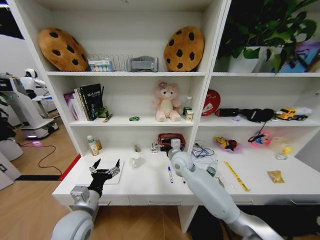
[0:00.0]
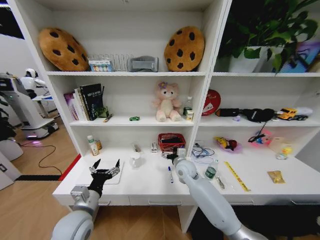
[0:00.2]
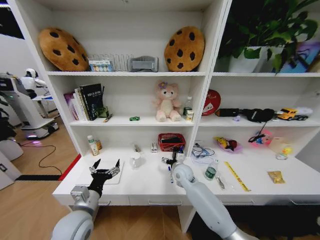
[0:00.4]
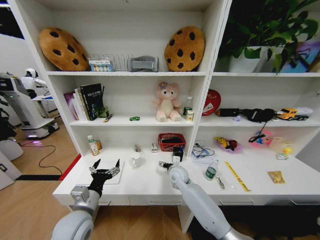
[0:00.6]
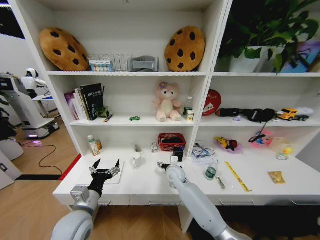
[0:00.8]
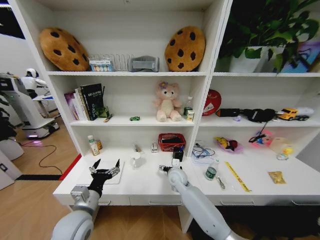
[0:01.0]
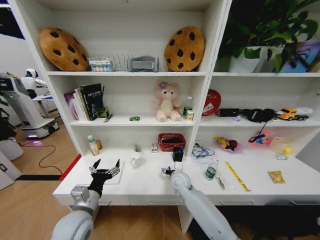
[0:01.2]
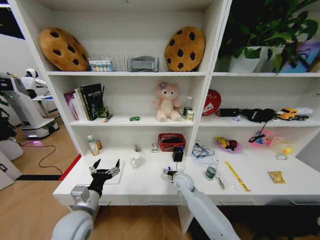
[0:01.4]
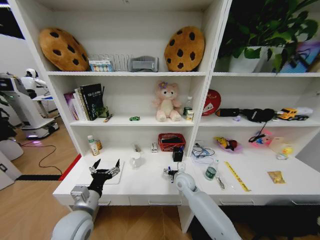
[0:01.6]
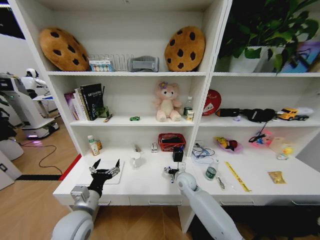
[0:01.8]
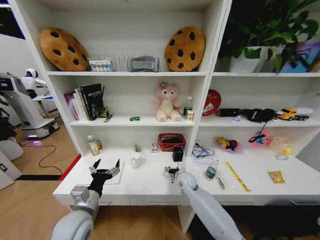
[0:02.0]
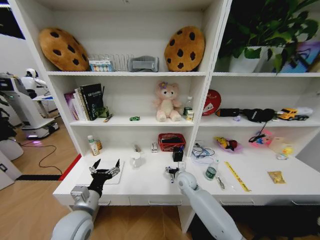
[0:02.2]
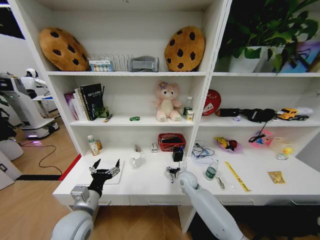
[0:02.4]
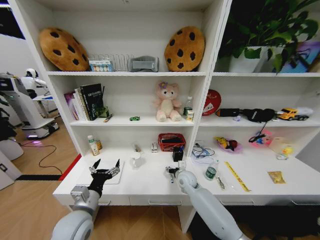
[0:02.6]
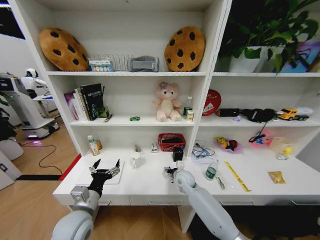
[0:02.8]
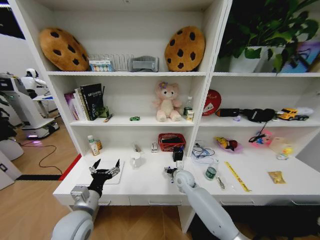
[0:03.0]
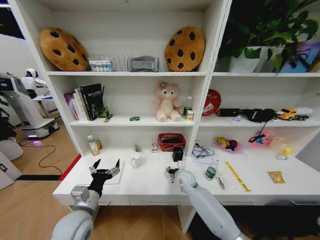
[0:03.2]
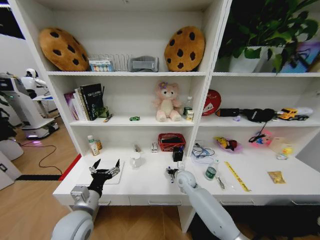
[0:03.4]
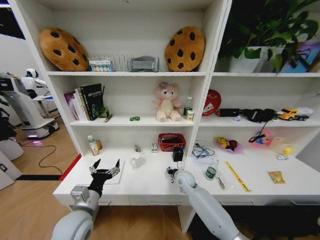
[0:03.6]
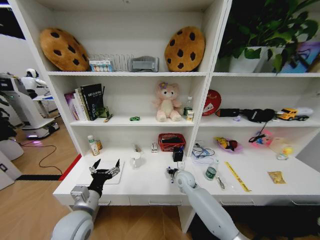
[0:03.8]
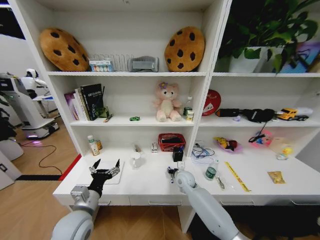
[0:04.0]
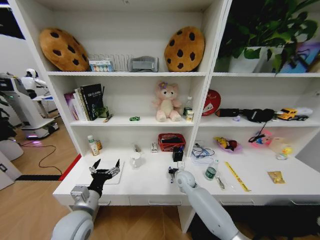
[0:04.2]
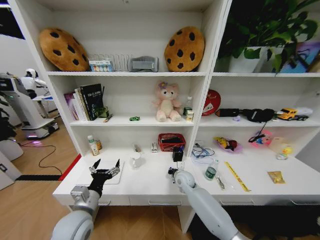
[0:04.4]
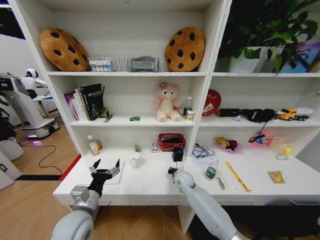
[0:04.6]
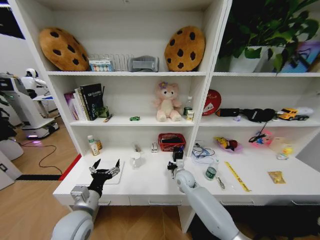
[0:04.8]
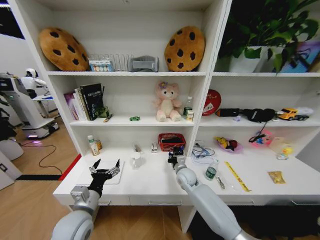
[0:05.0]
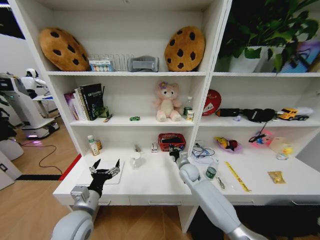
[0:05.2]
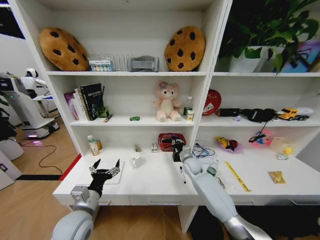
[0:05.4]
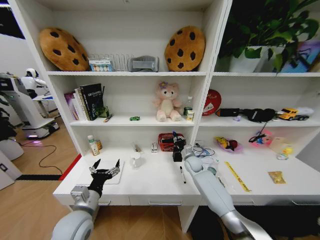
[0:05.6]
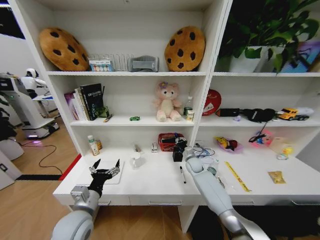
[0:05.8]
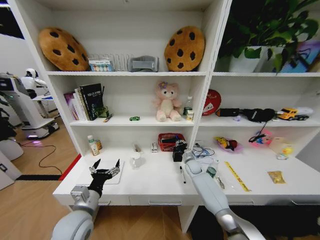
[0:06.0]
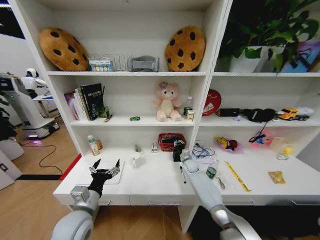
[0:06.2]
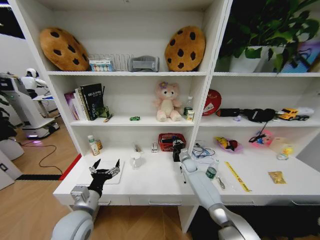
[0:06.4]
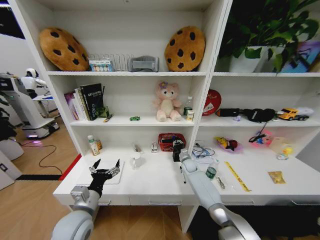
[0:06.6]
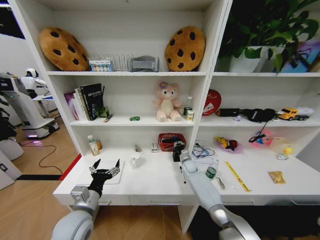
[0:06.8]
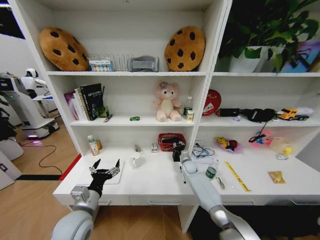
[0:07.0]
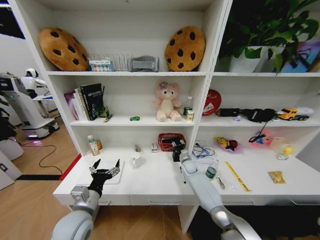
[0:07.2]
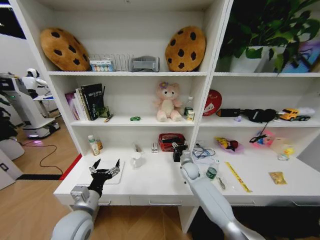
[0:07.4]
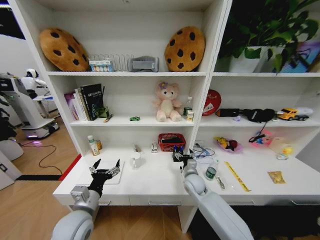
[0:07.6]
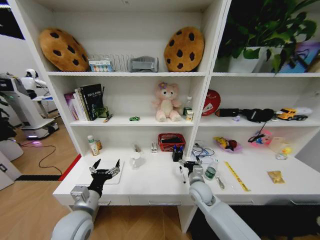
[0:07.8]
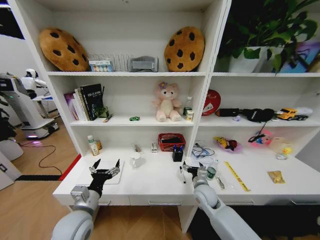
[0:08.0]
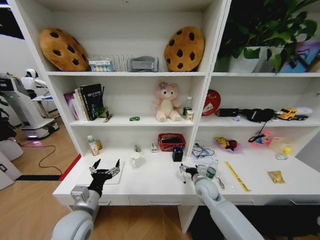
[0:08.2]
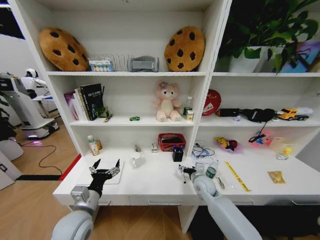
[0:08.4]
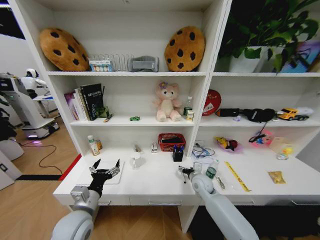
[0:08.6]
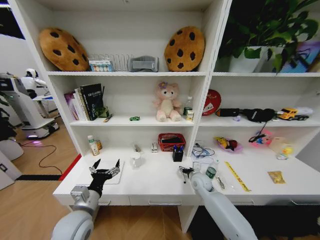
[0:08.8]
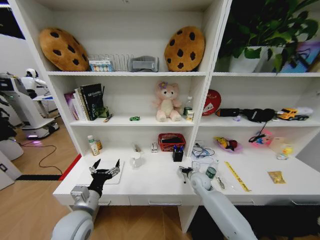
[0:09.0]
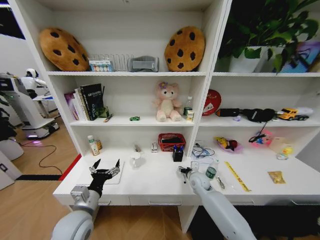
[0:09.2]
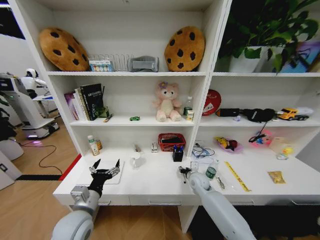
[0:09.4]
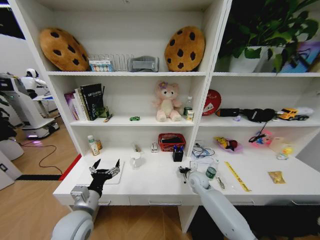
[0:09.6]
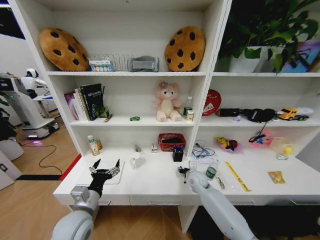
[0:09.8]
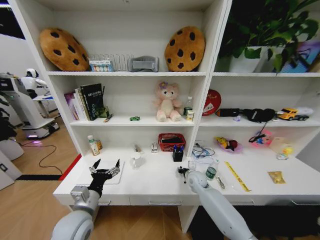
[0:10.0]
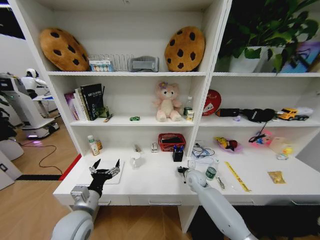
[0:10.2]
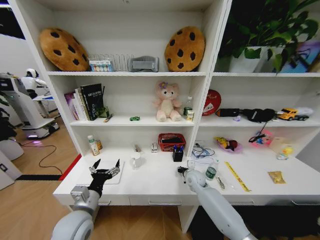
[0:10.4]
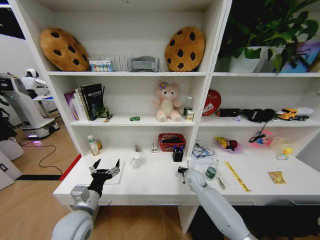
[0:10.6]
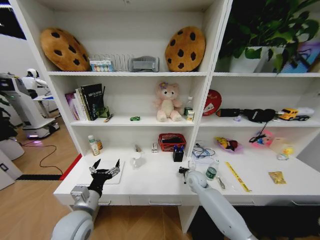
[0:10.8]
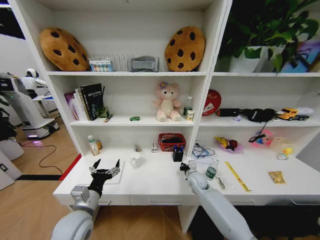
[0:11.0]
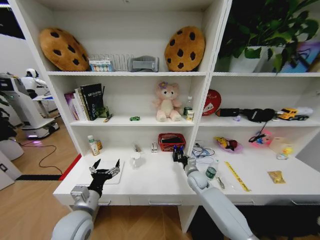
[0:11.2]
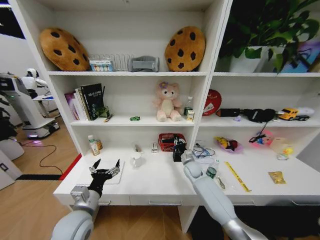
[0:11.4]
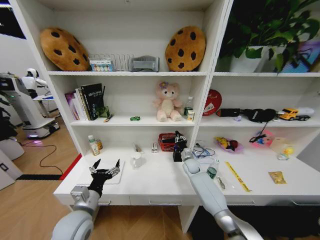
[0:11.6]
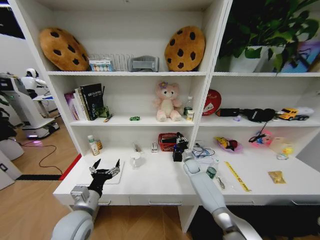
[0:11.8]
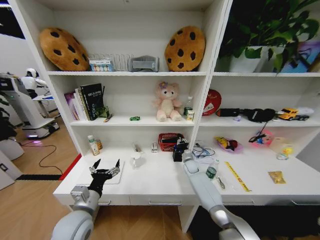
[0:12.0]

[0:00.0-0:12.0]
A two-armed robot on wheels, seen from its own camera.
Task of the whole recording: Organize the objects on the table.
0:00.0 to 0:01.6: The right gripper heads downward, covering approximately 10 cm.
0:01.6 to 0:03.0: The grippers stay close to where they were, moving slightly.
0:04.4 to 0:06.0: The right gripper is displaced forward and to the right by roughly 15 cm.
0:06.0 to 0:07.6: The right gripper shifts approximately 15 cm backward, and opens up.
0:07.6 to 0:09.0: The right gripper moves some 5 cm.
0:09.0 to 0:10.4: The right gripper closes.
0:10.4 to 0:12.0: The right gripper moves forward, approximately 10 cm.

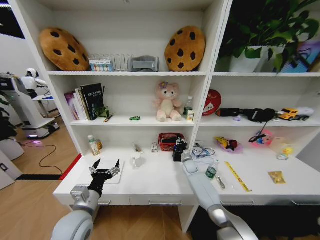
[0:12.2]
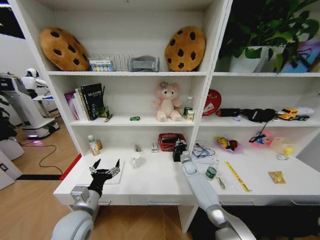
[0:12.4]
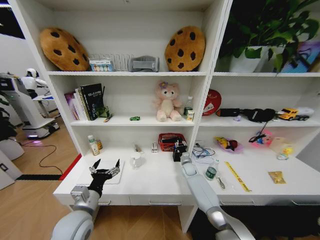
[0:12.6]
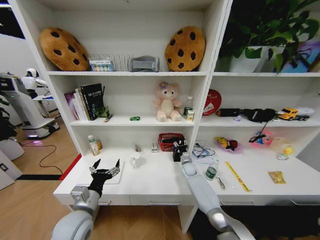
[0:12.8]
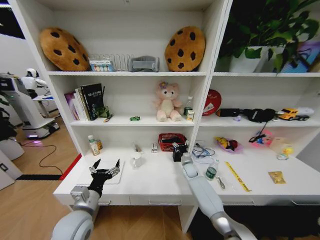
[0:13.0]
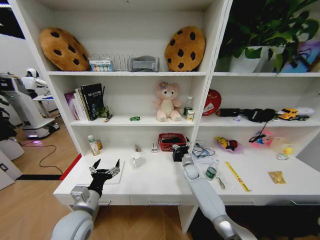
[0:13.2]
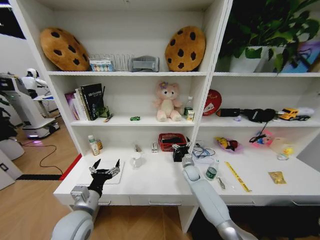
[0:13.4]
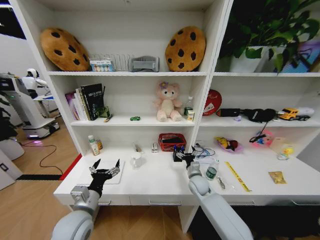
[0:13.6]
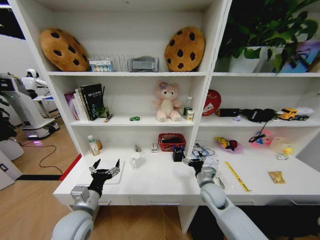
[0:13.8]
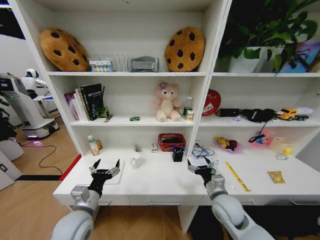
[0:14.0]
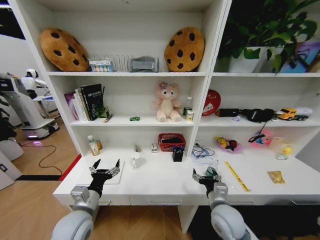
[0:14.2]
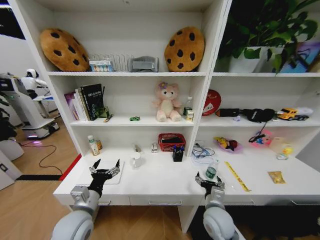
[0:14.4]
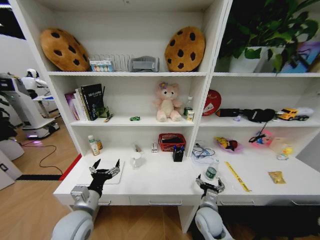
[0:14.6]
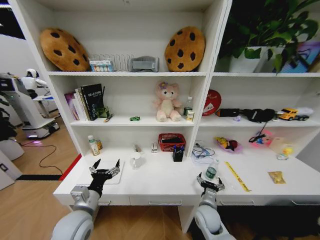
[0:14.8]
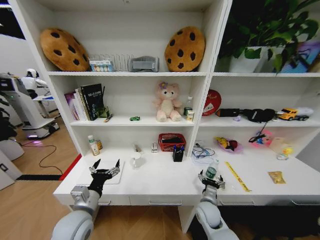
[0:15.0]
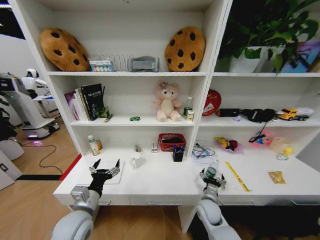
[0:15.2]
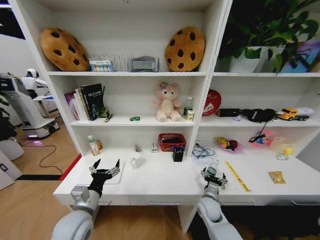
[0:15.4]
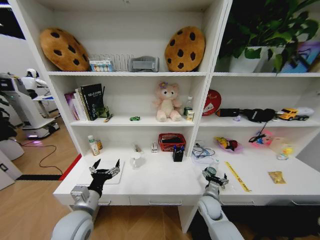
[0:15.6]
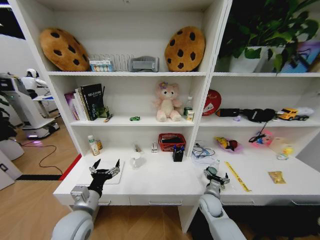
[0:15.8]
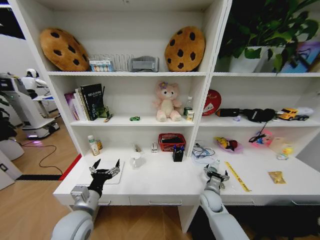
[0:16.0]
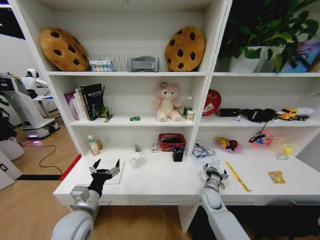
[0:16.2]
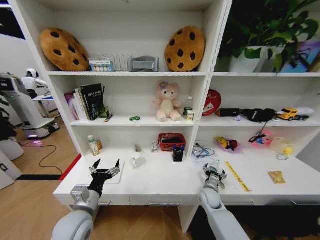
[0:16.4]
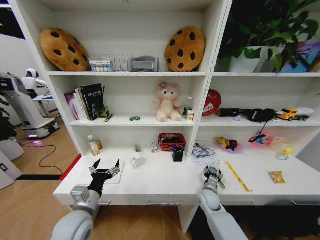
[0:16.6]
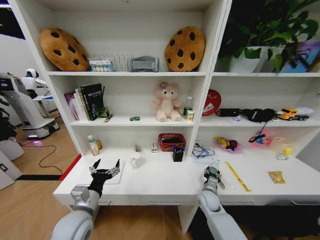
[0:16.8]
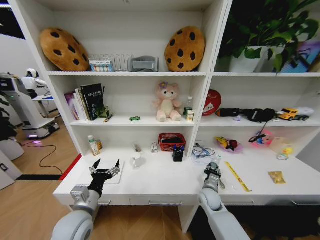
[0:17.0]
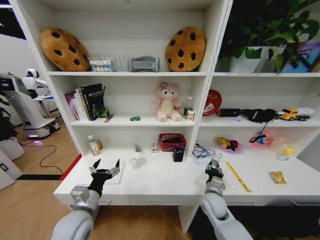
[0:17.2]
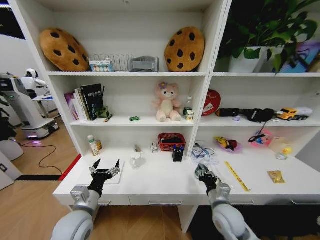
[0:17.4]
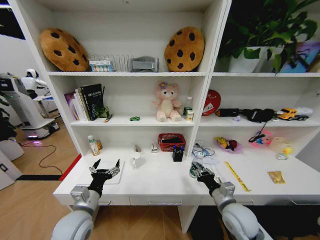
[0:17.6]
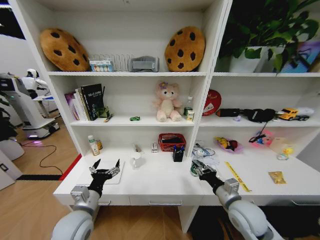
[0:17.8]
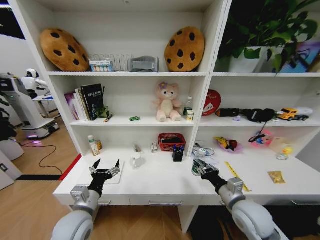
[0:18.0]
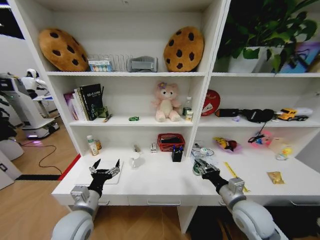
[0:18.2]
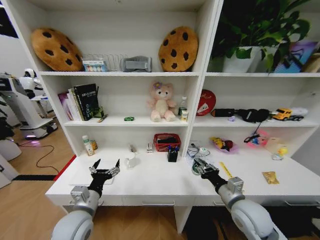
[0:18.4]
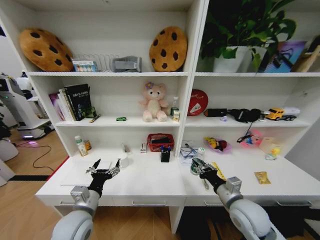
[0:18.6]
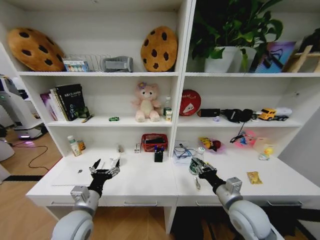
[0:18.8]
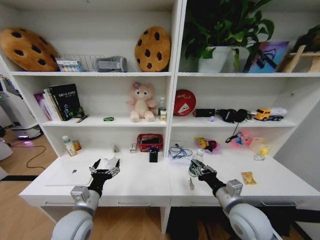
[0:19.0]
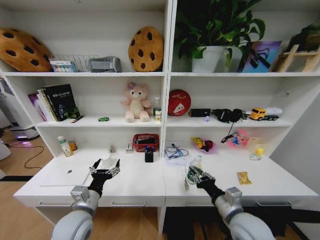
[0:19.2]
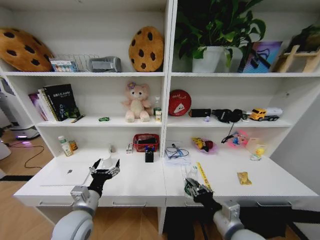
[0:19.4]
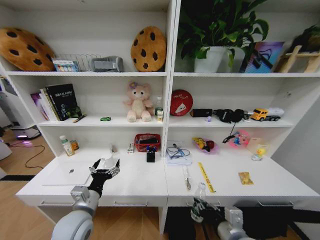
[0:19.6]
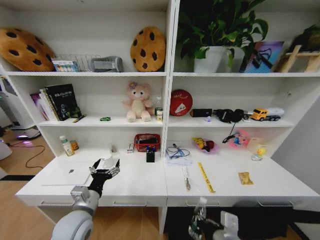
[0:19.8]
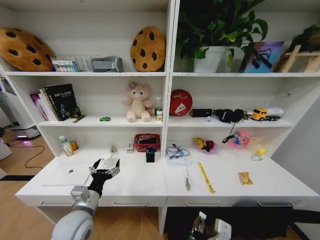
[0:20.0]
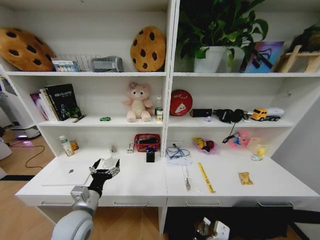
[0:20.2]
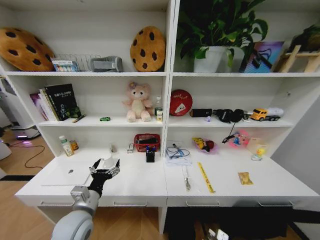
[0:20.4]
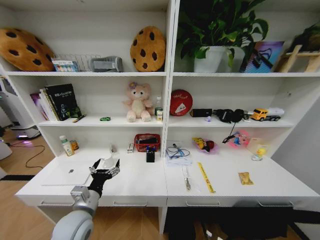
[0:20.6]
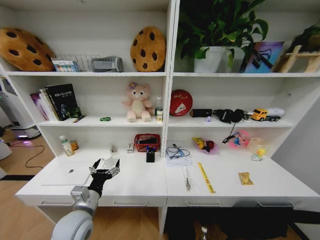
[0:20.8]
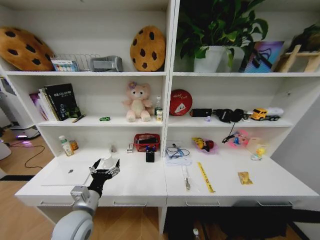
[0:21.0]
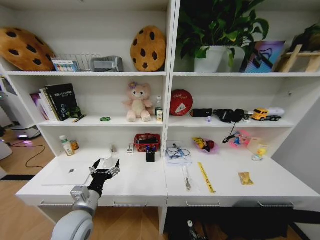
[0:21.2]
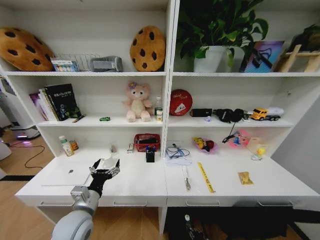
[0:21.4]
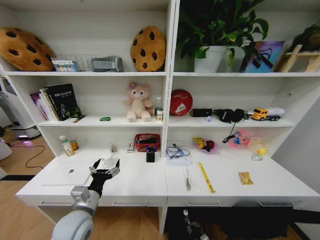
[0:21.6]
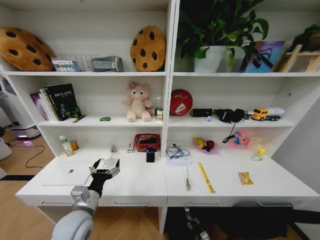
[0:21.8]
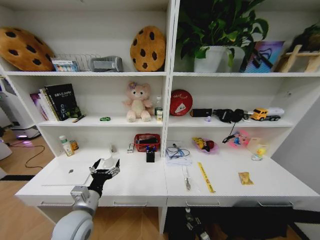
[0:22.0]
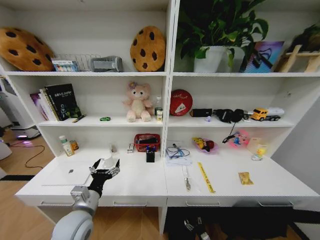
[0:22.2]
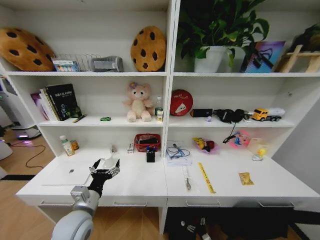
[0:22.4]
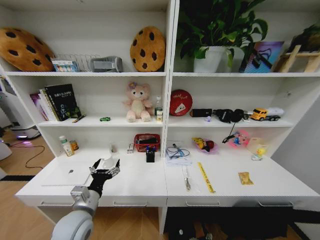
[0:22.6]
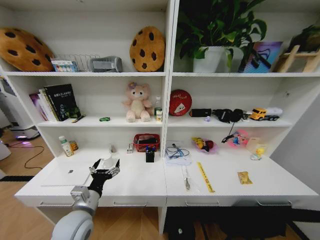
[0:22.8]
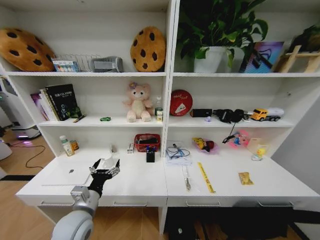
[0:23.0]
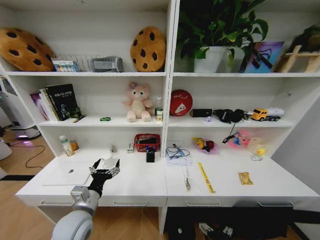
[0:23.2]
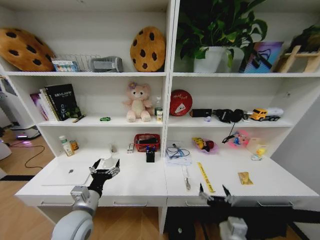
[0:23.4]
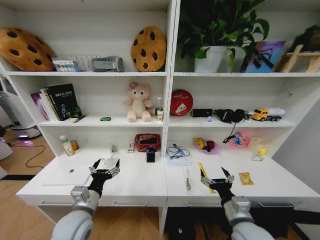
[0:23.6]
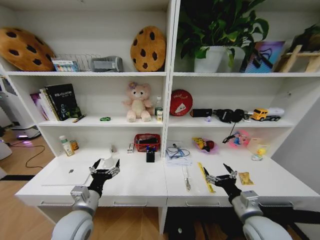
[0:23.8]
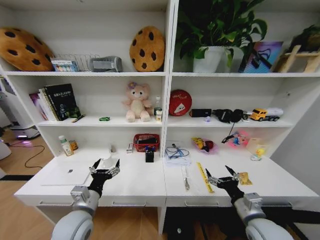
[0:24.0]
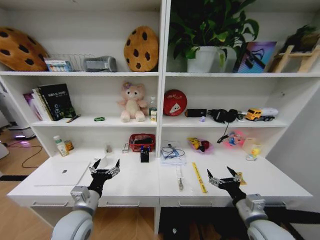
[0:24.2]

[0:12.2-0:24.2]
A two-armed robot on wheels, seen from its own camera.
Task of the whole recording: Organize the objects on the table.
0:12.2 to 0:13.8: The right gripper shifts some 20 cm backward and upward, and opens its fingers.
0:13.8 to 0:15.2: The right gripper shifts about 10 cm downward.
0:15.2 to 0:16.6: The right gripper goes about 5 cm forward.
0:16.6 to 0:18.2: The right gripper heads upward and backward, covering about 20 cm, and closes.
0:18.2 to 0:19.8: The right gripper is displaced backward and to the left by roughly 15 cm.
0:19.8 to 0:21.2: The right gripper goes roughly 50 cm downward.
0:21.2 to 0:22.6: The right gripper ends up about 5 cm from where it was, and opens its fingers.
0:22.6 to 0:24.2: The right gripper travels upward by approximately 40 cm.
